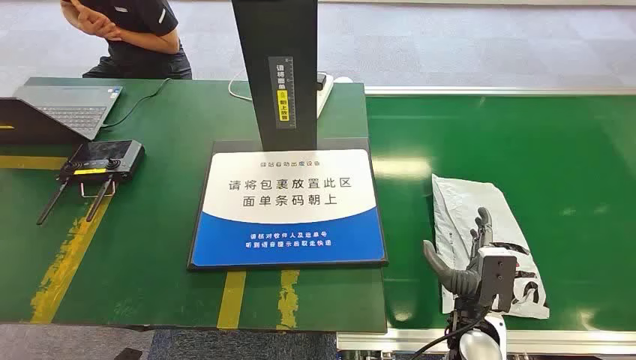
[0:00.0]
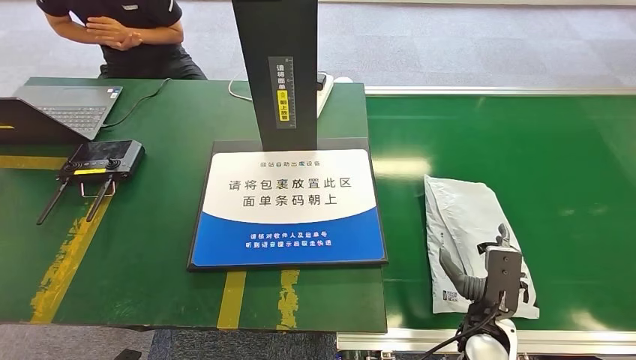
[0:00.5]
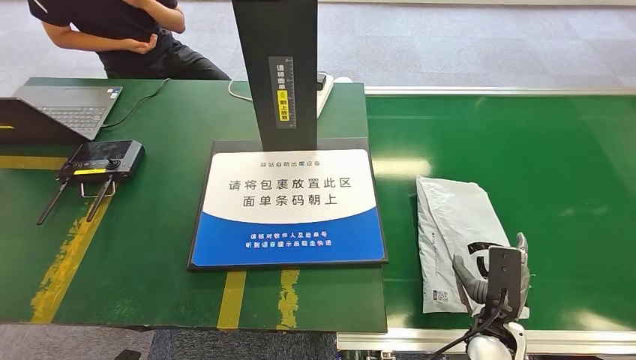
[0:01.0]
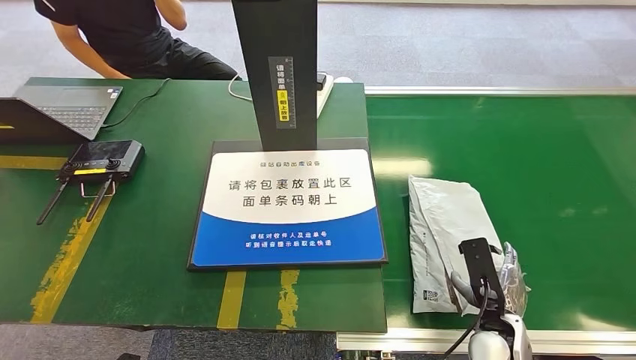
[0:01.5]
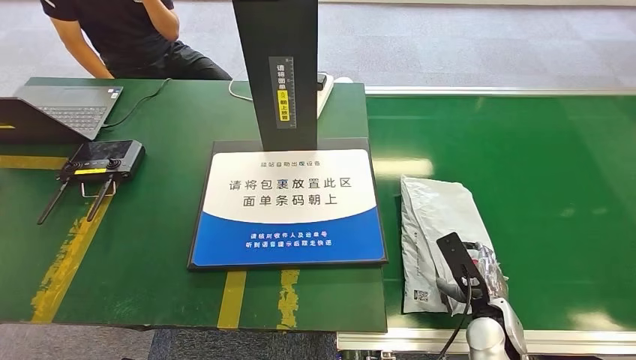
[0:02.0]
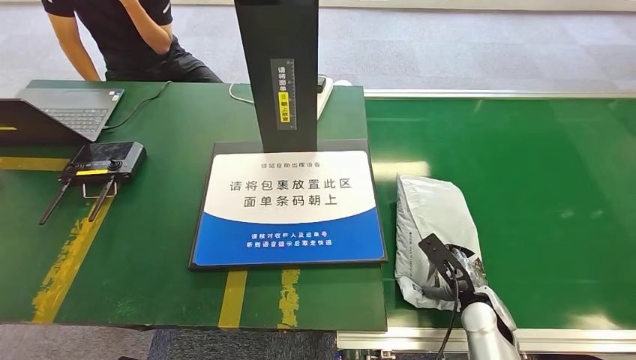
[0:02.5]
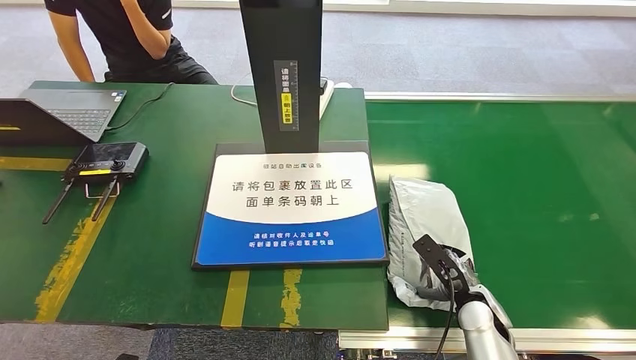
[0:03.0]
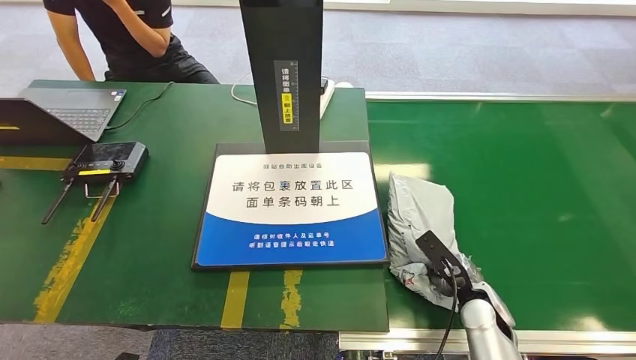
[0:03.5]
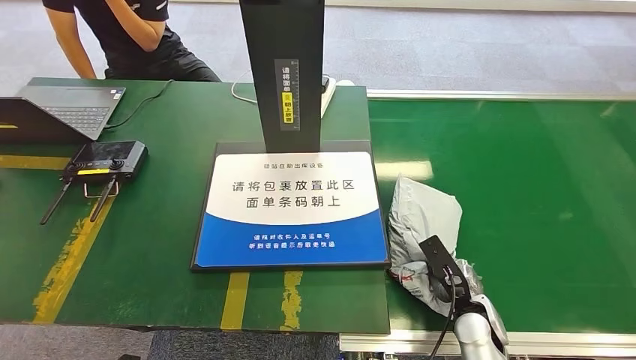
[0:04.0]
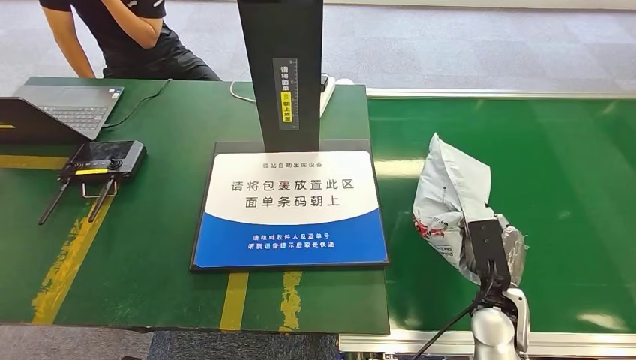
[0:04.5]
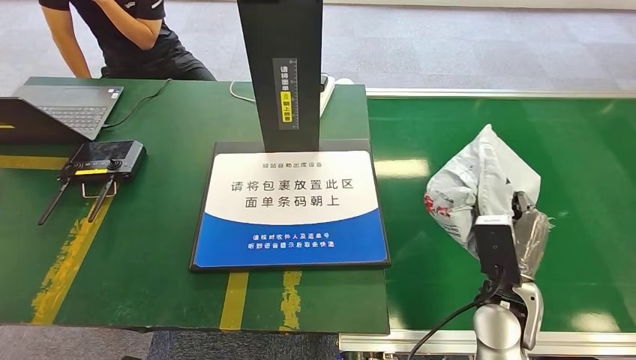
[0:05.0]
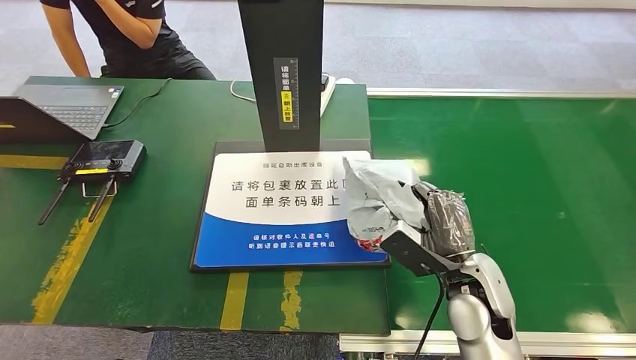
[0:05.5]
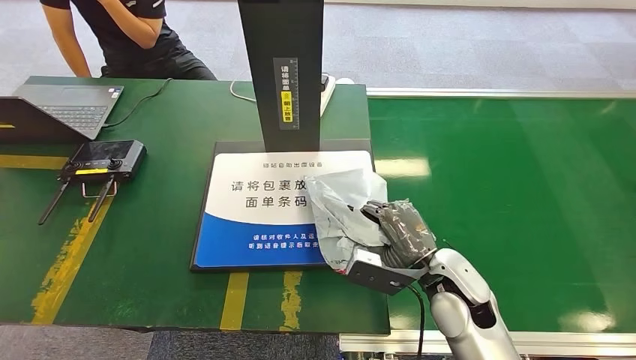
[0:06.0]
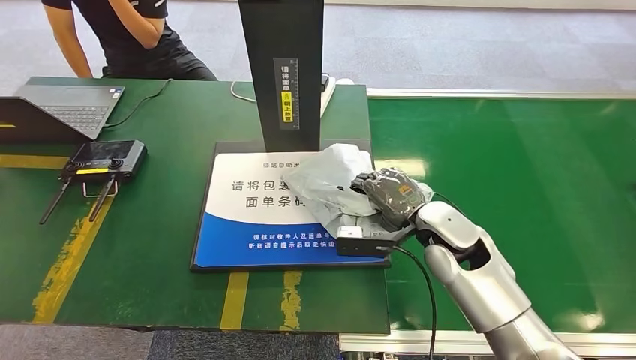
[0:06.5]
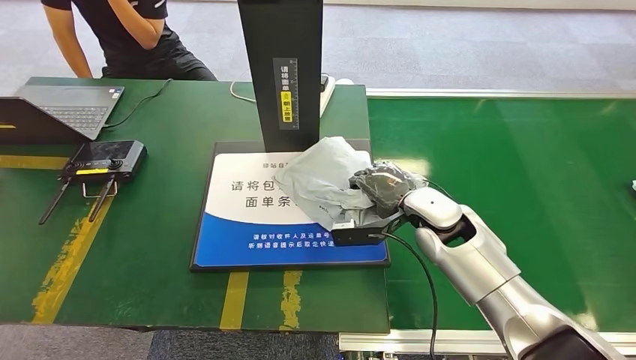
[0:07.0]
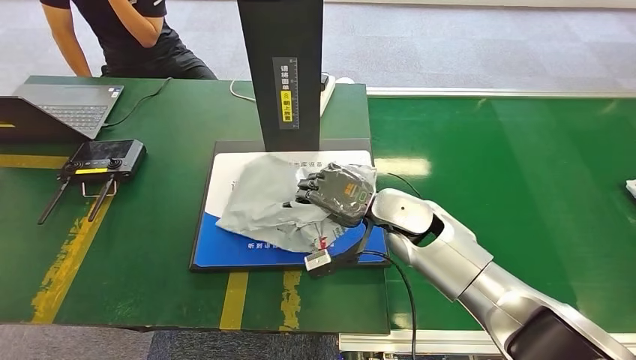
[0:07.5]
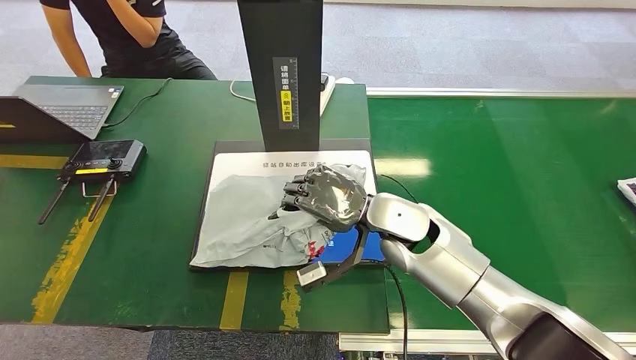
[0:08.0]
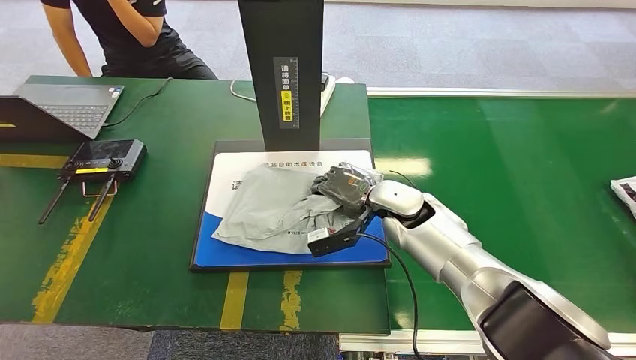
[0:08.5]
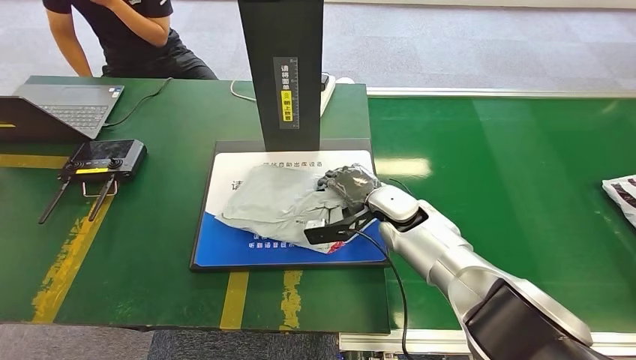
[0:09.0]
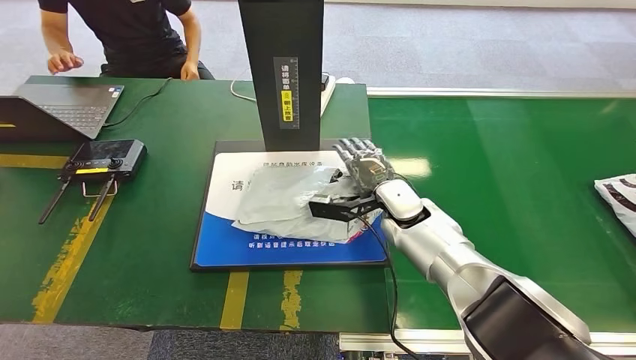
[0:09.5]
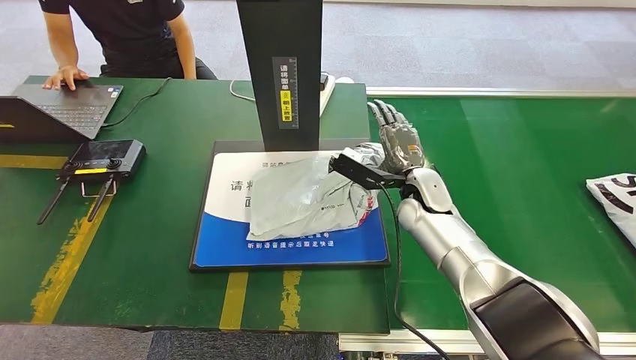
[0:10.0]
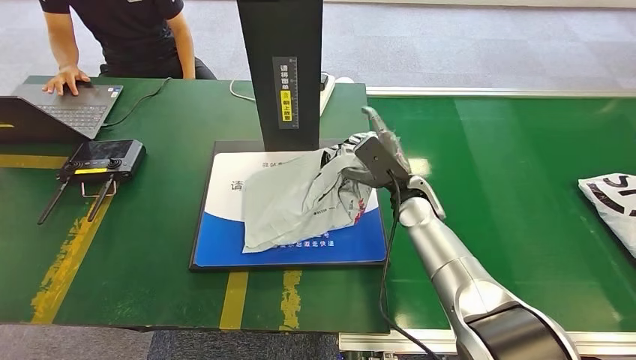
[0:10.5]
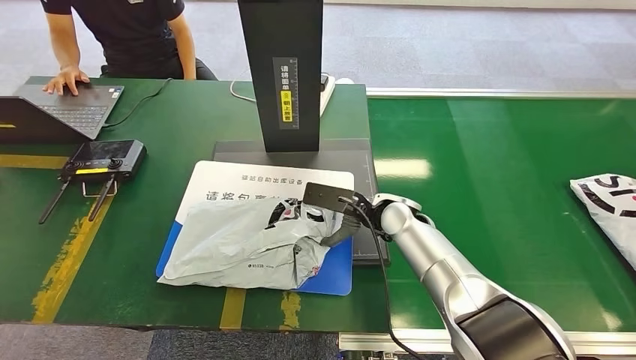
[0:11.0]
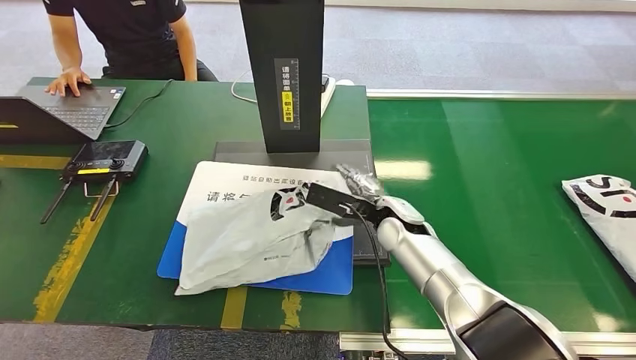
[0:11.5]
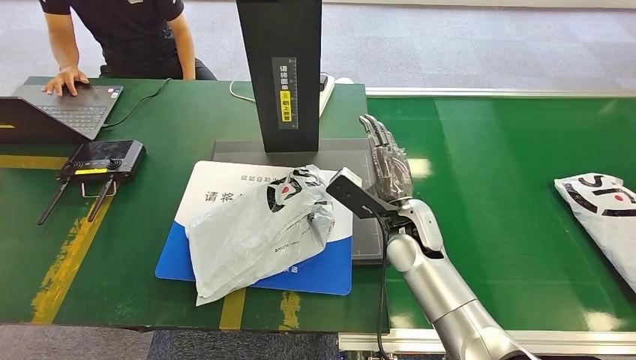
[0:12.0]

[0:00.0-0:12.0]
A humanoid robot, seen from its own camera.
Step, 0:00.0 to 0:04.5: Pick up the package from the conveyor belt.
Step, 0:05.0 to 0:12.0: Place the package onto the inbound machine.
0:04.0 to 0:06.0: The right hand travels upward and to the left by approximately 15 cm.
0:06.0 to 0:08.0: The right hand moves forward, to the left and upward, some 15 cm.
0:08.0 to 0:10.0: The right hand heads to the right, covering approximately 5 cm.

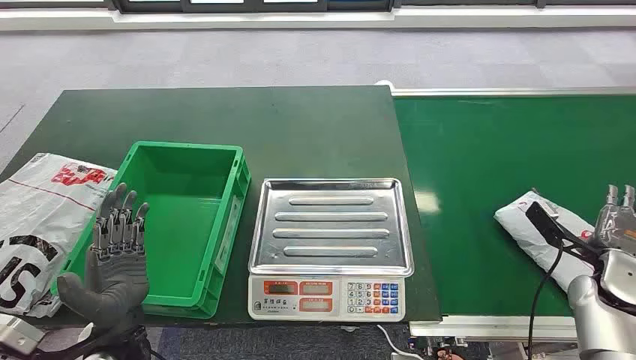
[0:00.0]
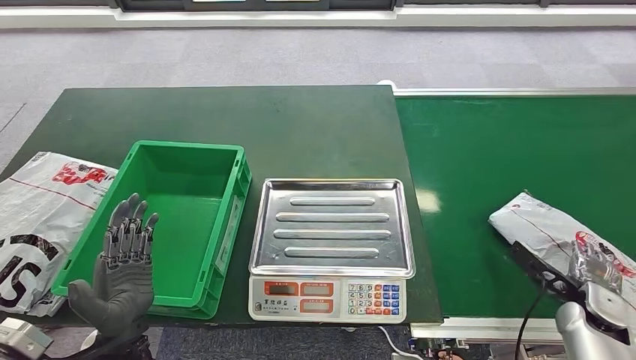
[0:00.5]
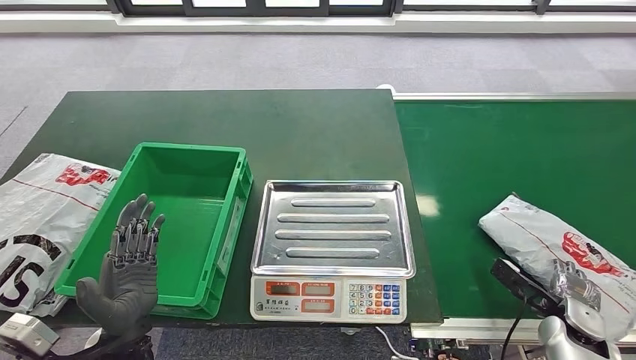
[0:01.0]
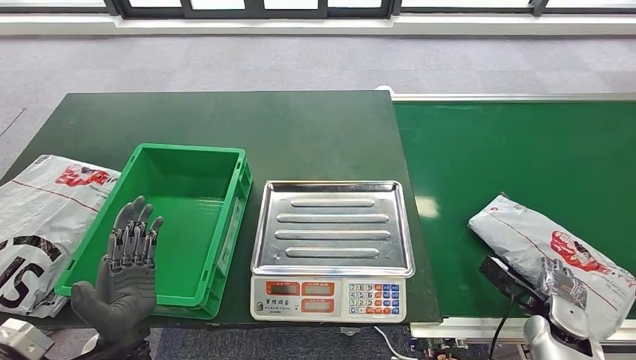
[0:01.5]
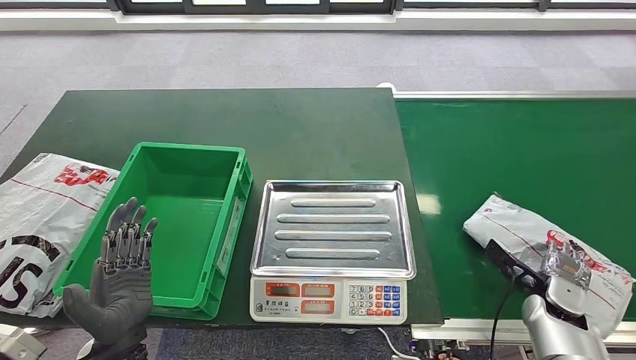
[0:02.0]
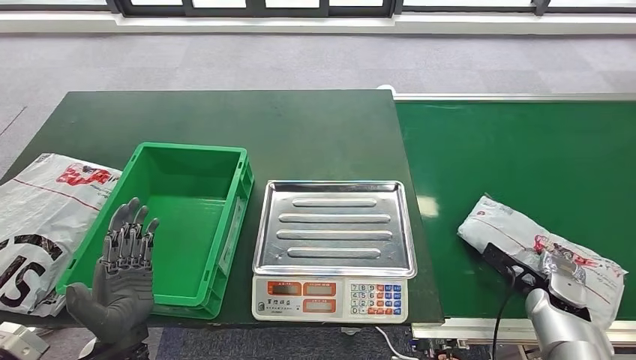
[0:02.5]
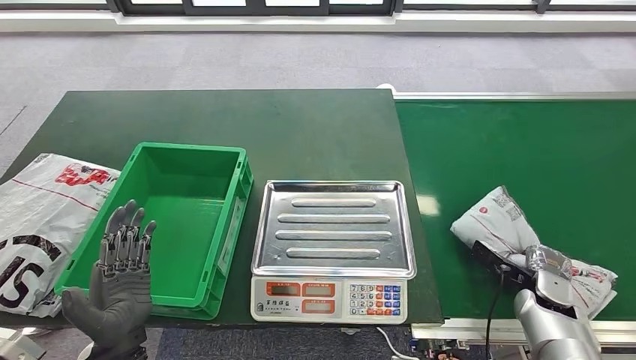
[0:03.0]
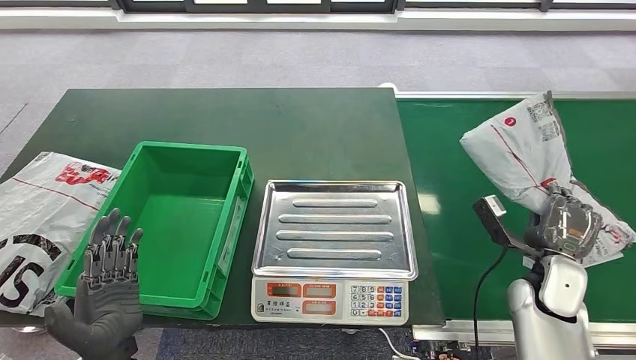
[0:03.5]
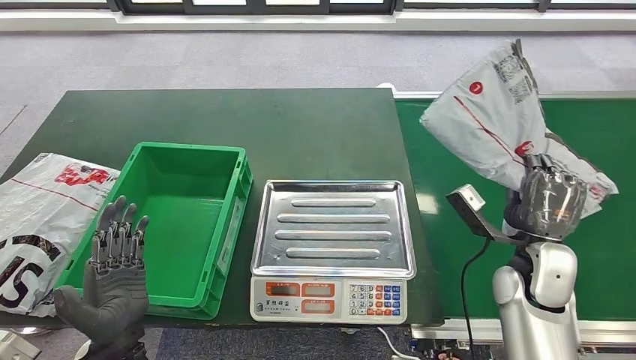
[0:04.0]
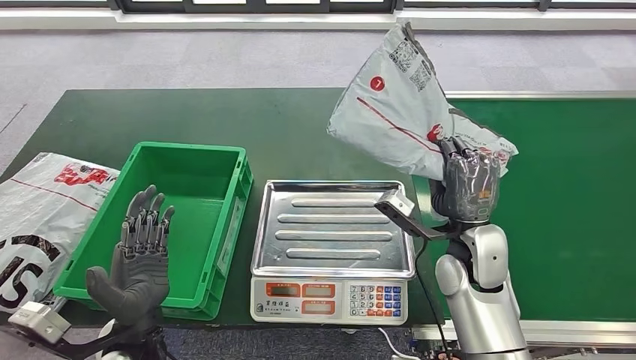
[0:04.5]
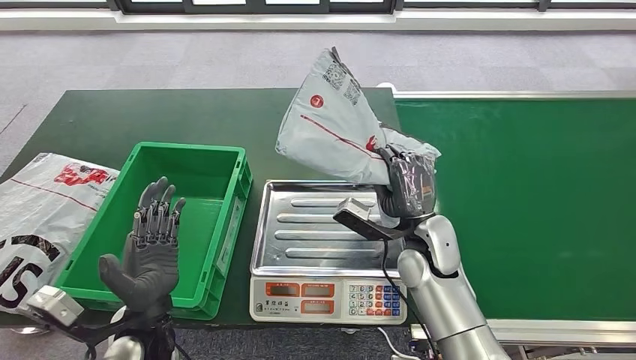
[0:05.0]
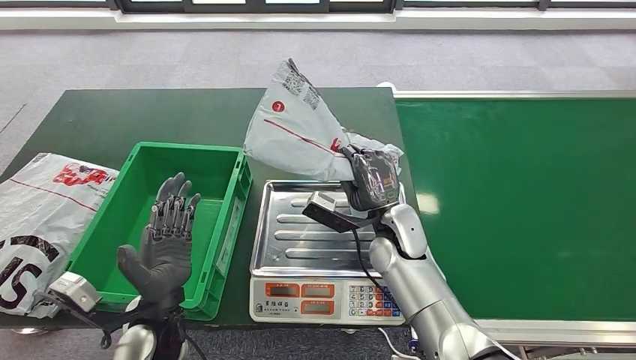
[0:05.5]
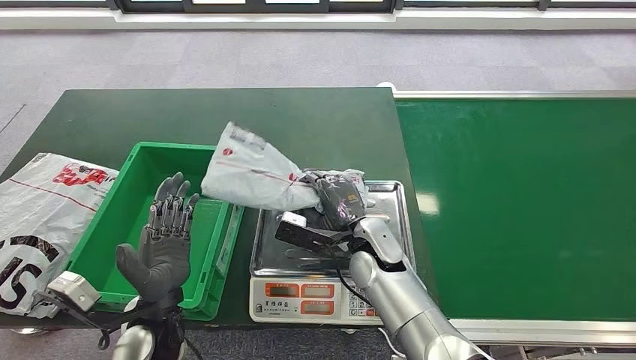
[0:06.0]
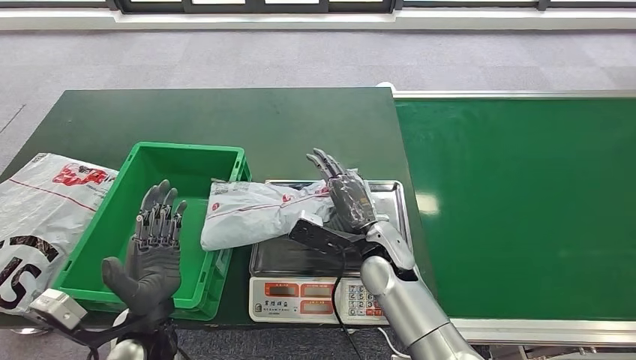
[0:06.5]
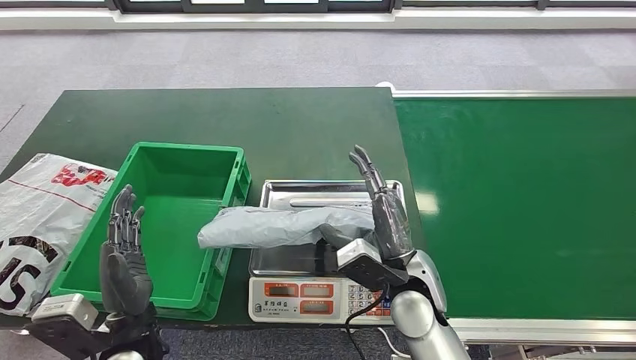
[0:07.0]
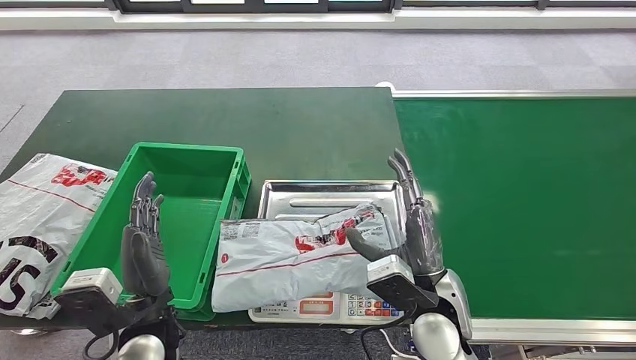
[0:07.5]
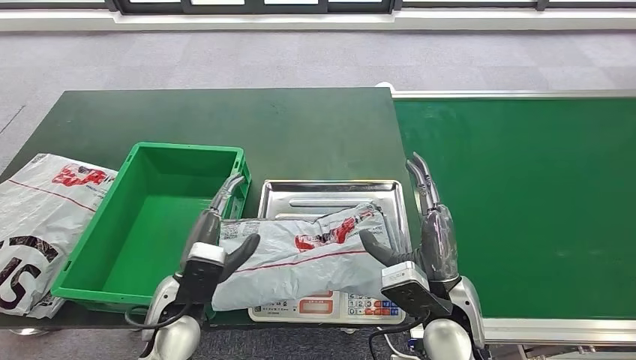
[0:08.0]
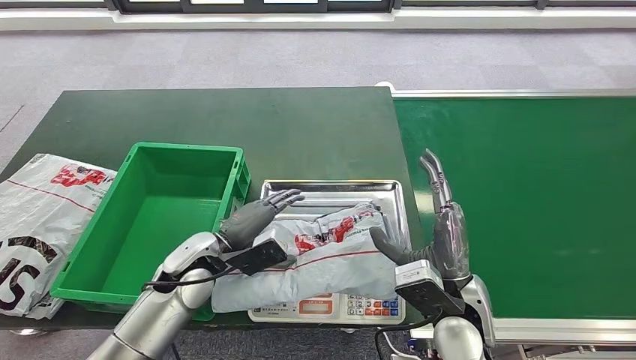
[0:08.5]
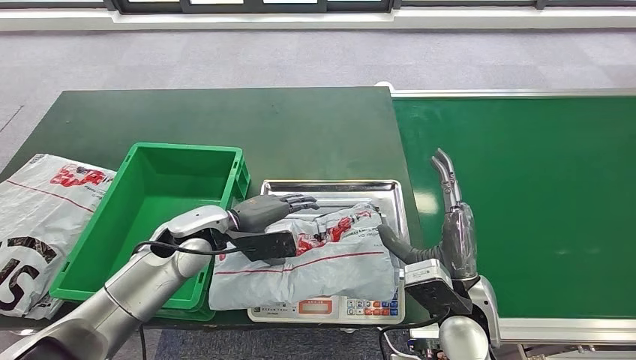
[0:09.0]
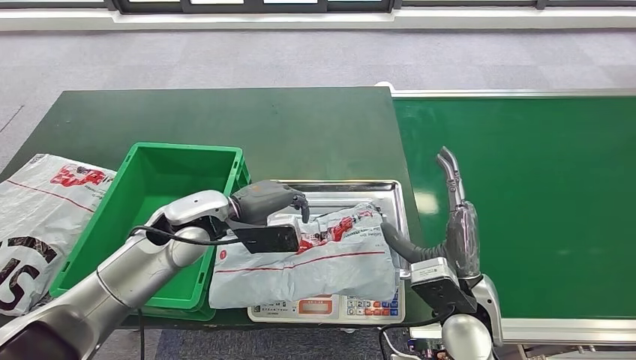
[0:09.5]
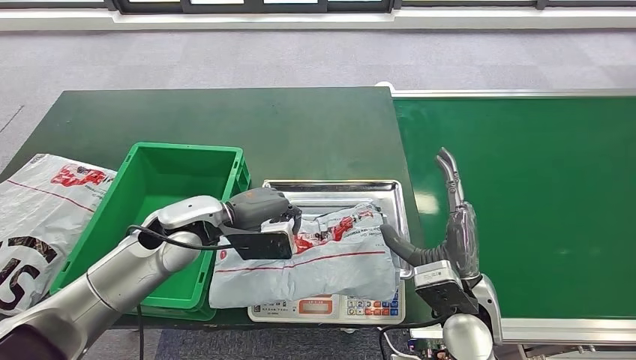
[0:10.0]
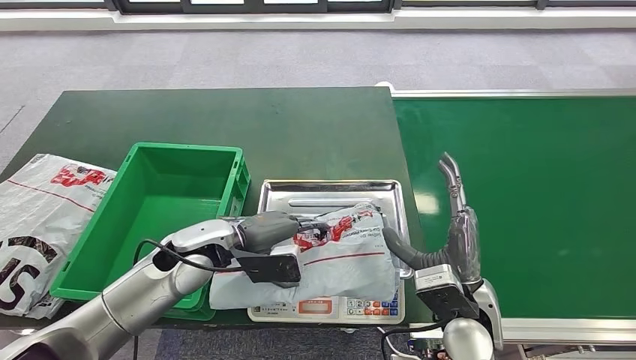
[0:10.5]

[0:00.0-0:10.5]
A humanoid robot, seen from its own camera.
Step, 0:00.0 to 0:03.5: Pick up the package from the conveyor belt.
Step, 0:04.0 to 0:07.0: Place the package onto the inbound machine.
0:02.0 to 0:04.0: The right hand is displaced upward and to the left by roughly 15 cm.
